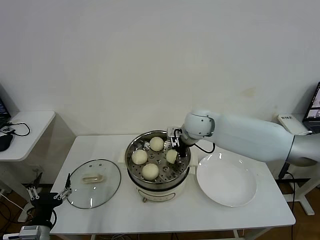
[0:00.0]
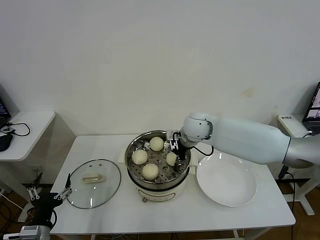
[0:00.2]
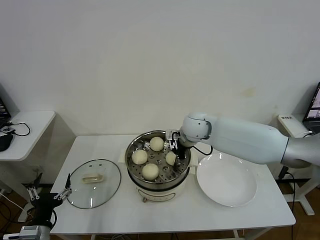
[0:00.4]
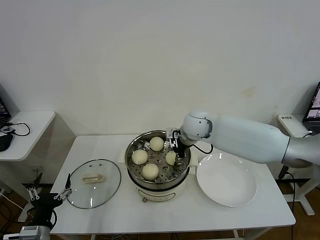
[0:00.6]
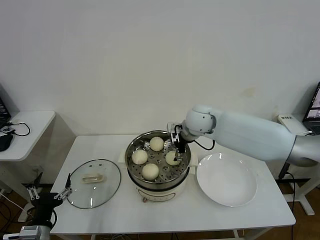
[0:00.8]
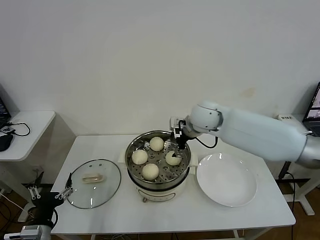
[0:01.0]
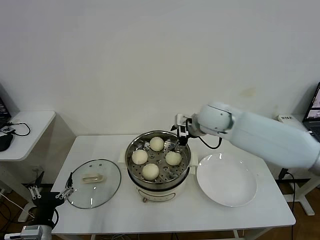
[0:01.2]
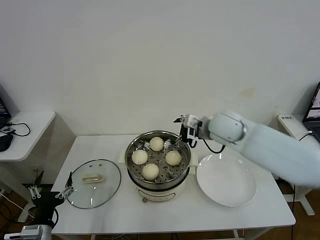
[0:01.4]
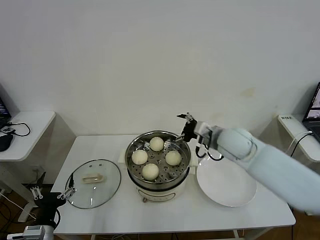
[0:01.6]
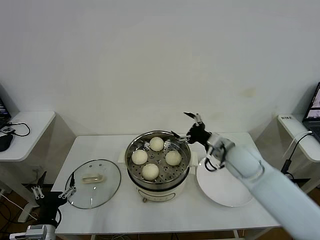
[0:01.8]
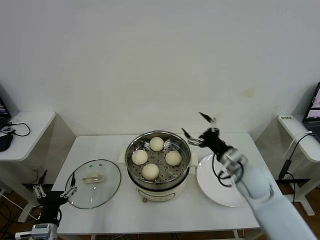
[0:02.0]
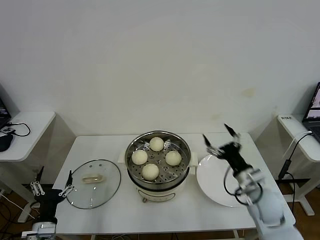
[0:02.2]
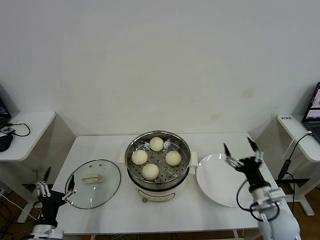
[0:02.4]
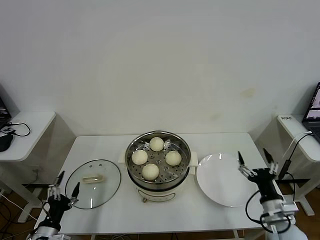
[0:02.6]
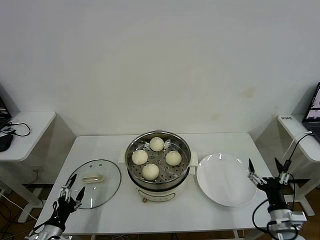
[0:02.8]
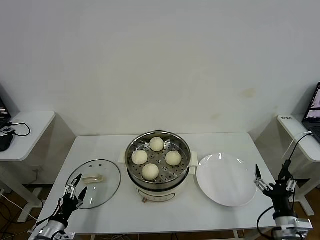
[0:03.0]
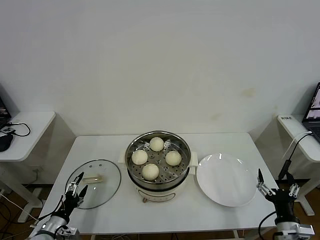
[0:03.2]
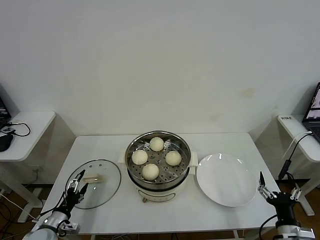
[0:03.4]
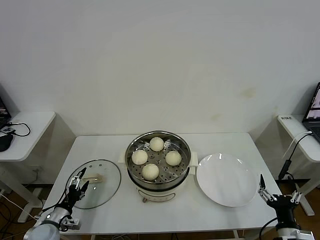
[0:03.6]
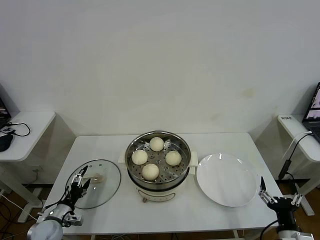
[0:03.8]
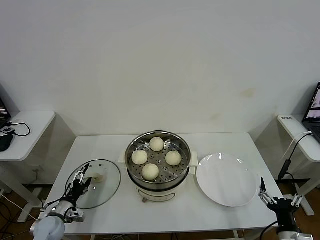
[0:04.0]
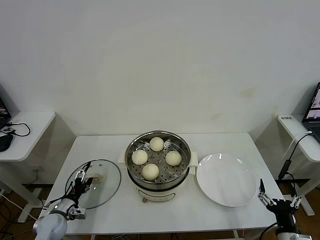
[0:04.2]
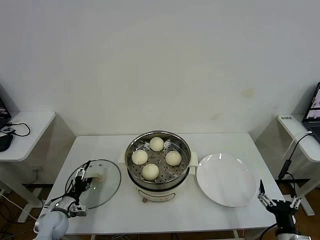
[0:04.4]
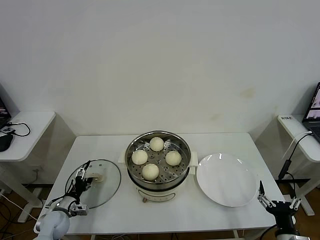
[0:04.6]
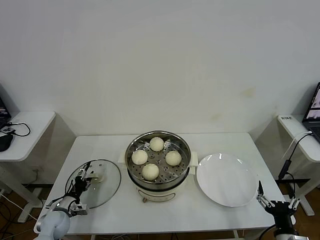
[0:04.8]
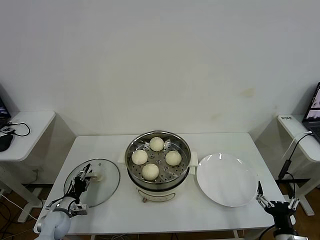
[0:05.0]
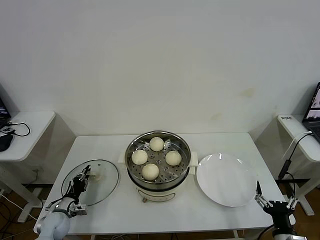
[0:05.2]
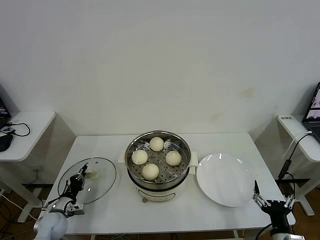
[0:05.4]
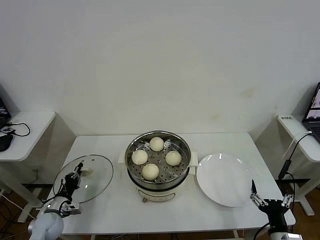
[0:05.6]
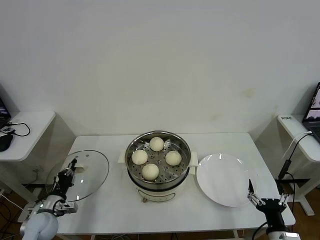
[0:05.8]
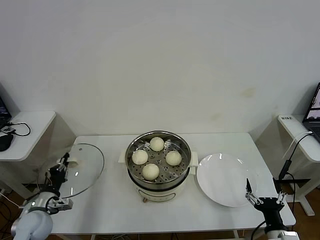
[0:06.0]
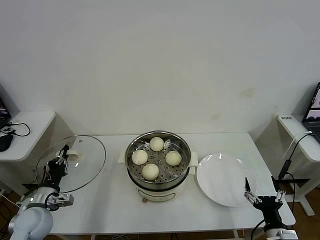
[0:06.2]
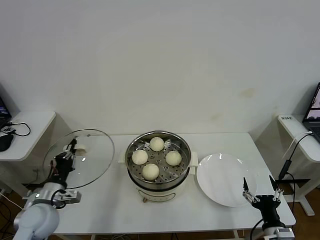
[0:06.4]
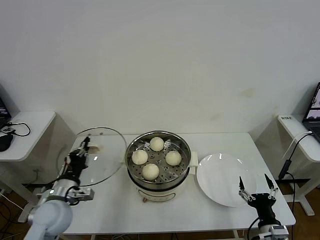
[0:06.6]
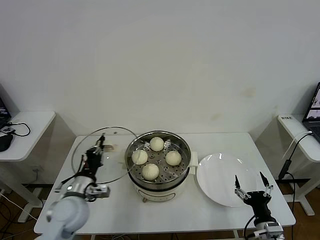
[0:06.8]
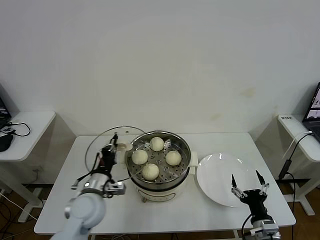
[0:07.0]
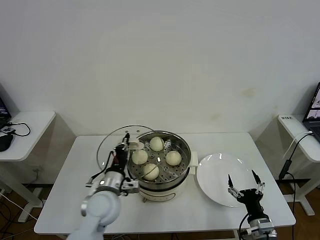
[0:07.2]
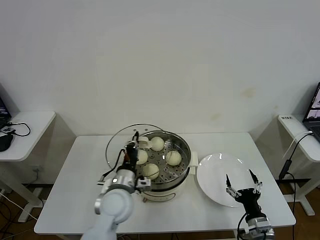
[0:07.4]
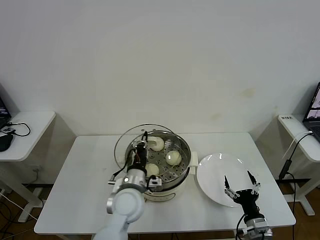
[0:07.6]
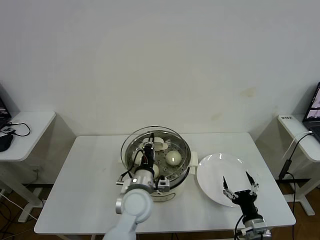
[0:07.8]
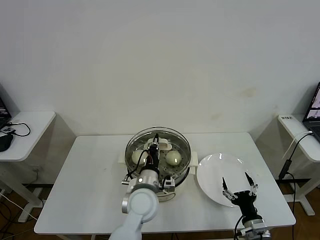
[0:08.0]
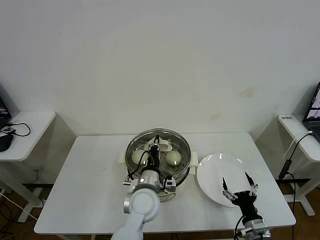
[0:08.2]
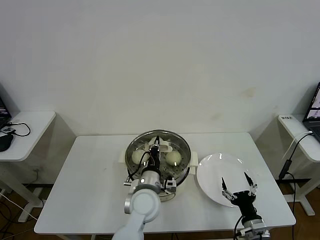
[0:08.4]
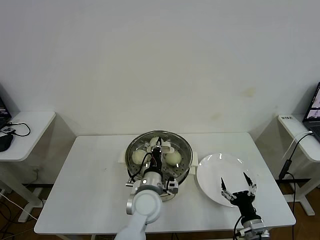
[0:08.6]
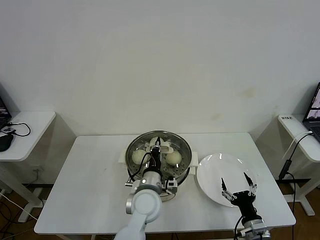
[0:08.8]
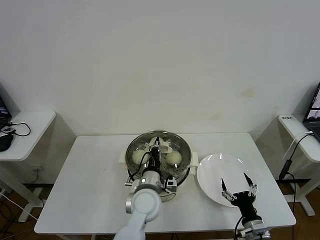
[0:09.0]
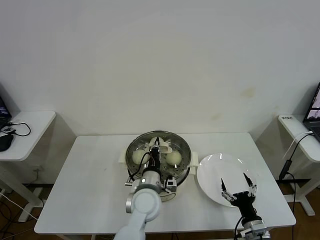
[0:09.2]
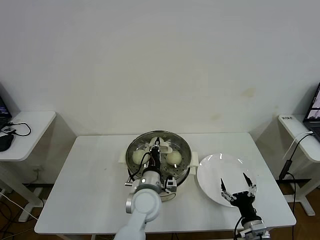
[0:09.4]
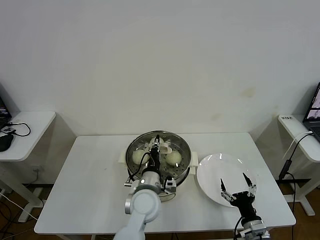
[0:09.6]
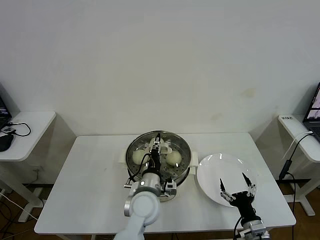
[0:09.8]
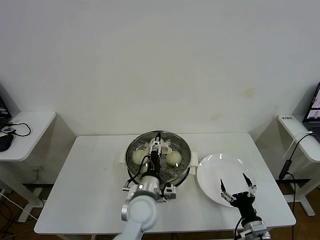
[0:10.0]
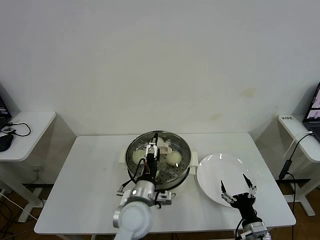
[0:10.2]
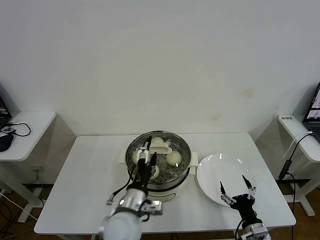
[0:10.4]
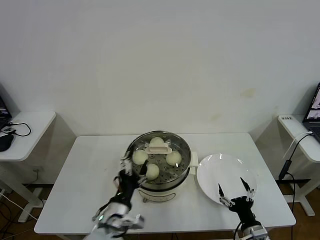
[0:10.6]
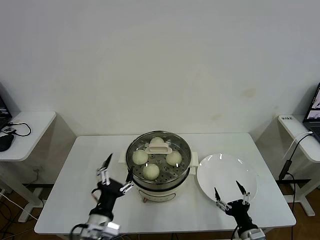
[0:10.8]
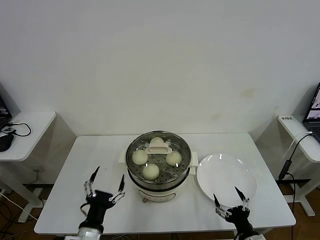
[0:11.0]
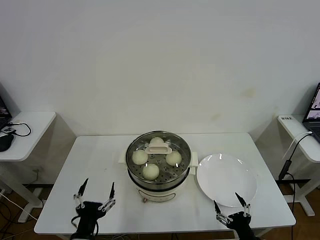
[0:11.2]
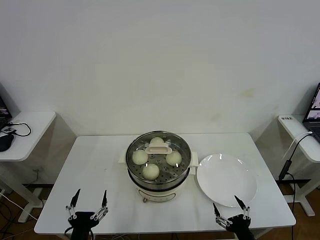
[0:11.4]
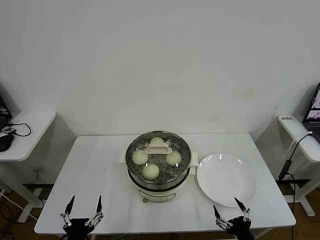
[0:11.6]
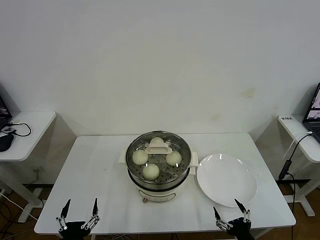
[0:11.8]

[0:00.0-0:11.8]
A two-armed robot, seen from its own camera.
Task of the whole recording: take steamed baozi put them in steamer then cover it.
Step, 0:01.0 to 0:05.4: Grasp the pot lid with left gripper.
Step, 0:05.6 to 0:10.0: Place the pot lid on the steamer with left gripper.
0:00.0 to 0:01.4: The right gripper heads to the right and backward, covering approximately 10 cm, and opens up.
0:01.4 to 0:03.0: The right gripper is displaced backward, downward and to the right by some 40 cm, while the left gripper moves downward, approximately 10 cm.
0:03.0 to 0:04.4: The left gripper travels forward by about 10 cm.
0:04.4 to 0:06.0: The left gripper shifts roughly 10 cm upward, and closes up.
0:06.0 to 0:07.4: The left gripper heads to the right, covering some 25 cm, while the right gripper shifts by approximately 5 cm.
0:07.4 to 0:08.8: The left gripper travels to the right by some 10 cm.
0:08.8 to 0:10.4: The left gripper goes roughly 5 cm backward, and opens up.
0:10.4 to 0:11.8: The right gripper travels backward by approximately 5 cm; the left gripper shifts roughly 25 cm backward, to the left and downward.

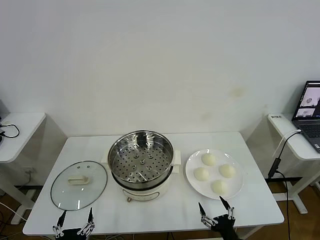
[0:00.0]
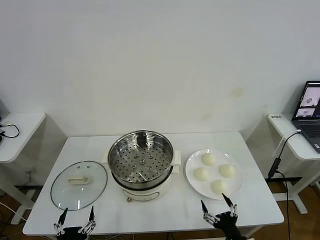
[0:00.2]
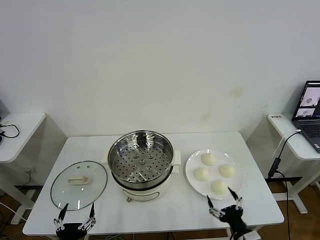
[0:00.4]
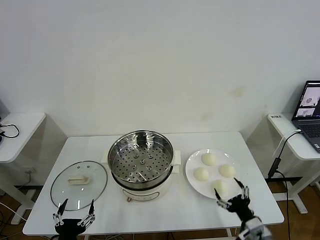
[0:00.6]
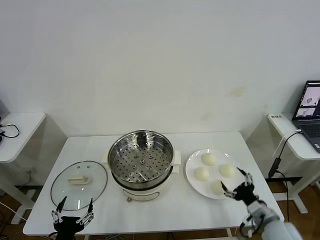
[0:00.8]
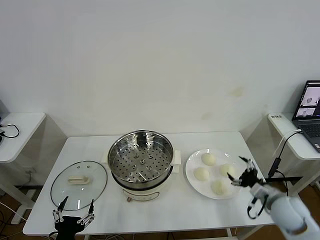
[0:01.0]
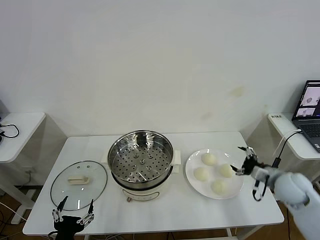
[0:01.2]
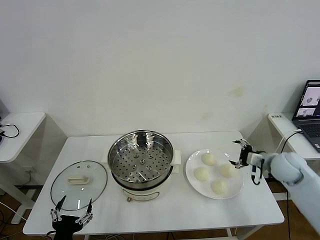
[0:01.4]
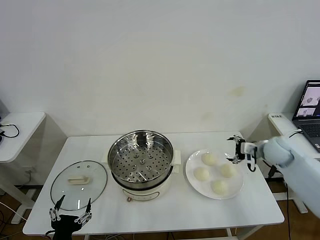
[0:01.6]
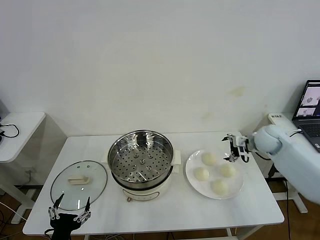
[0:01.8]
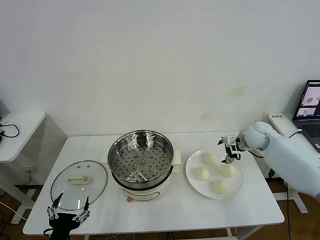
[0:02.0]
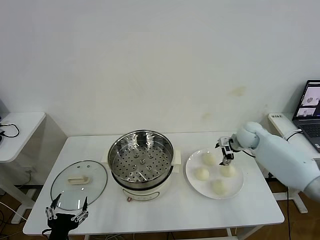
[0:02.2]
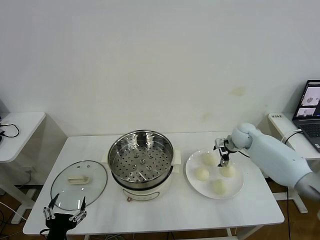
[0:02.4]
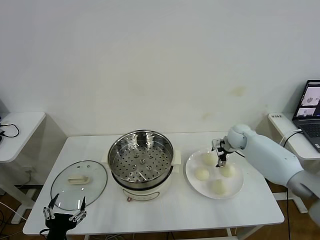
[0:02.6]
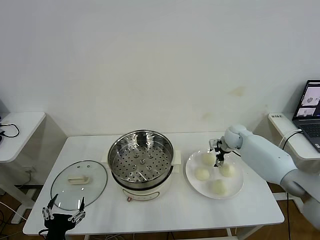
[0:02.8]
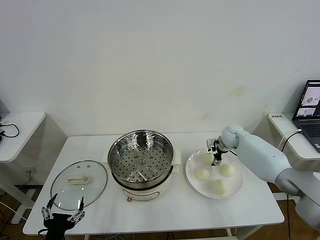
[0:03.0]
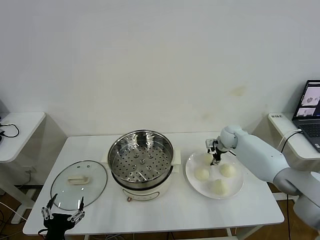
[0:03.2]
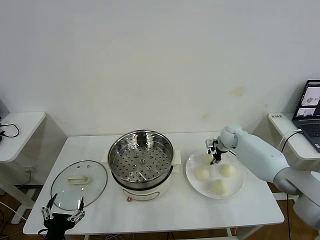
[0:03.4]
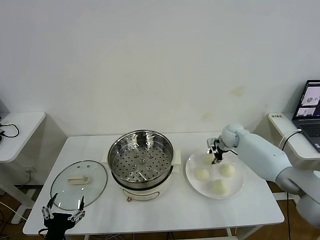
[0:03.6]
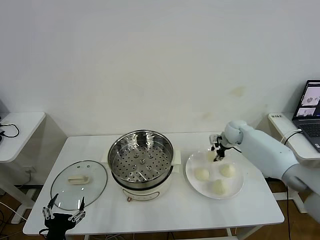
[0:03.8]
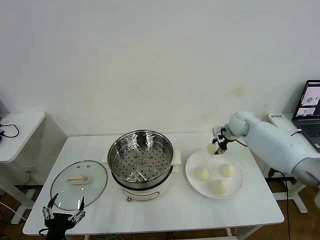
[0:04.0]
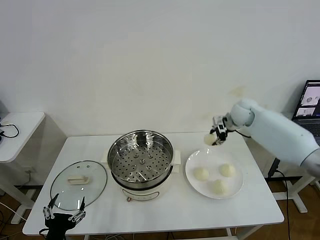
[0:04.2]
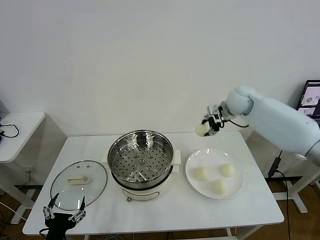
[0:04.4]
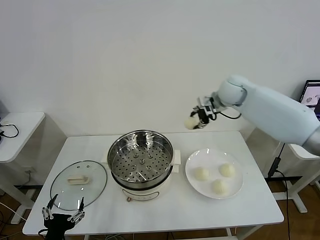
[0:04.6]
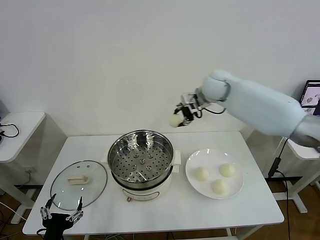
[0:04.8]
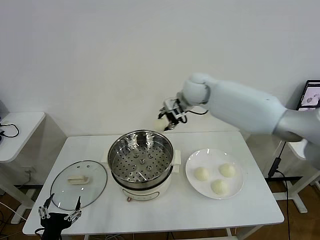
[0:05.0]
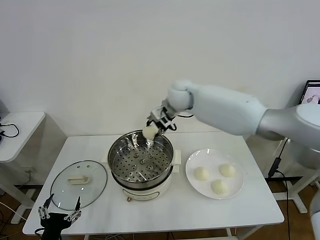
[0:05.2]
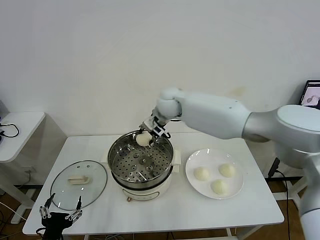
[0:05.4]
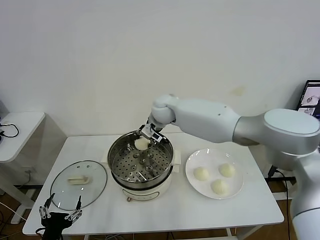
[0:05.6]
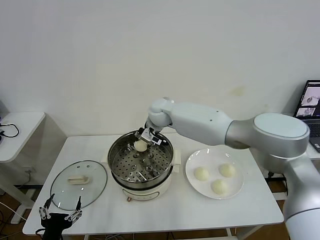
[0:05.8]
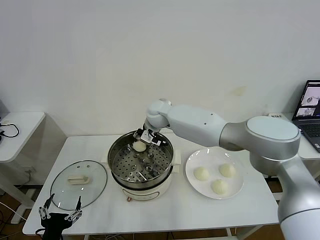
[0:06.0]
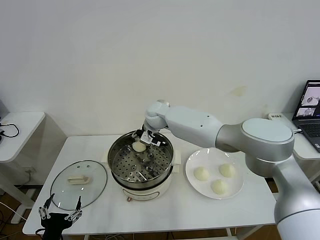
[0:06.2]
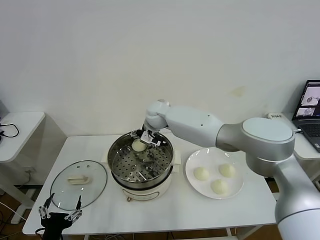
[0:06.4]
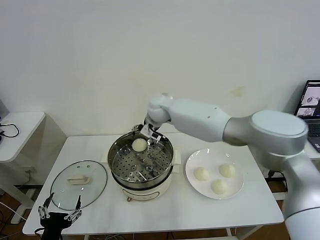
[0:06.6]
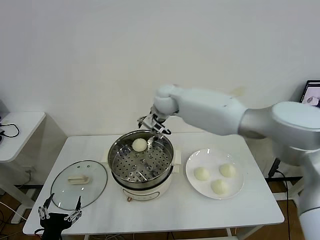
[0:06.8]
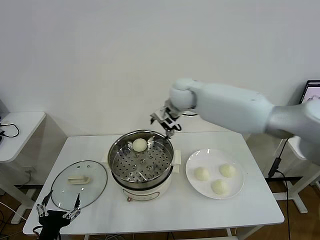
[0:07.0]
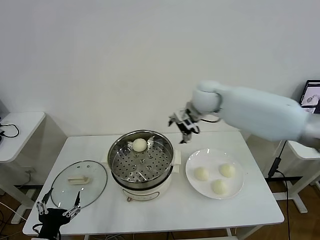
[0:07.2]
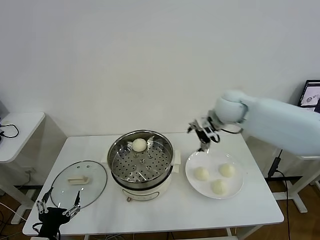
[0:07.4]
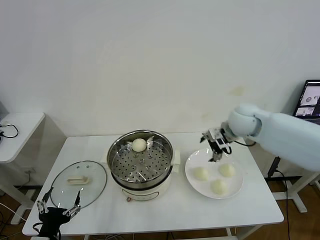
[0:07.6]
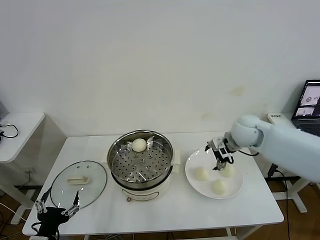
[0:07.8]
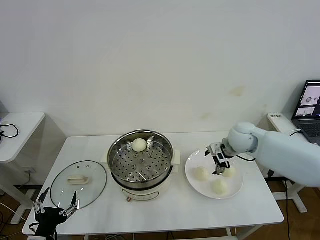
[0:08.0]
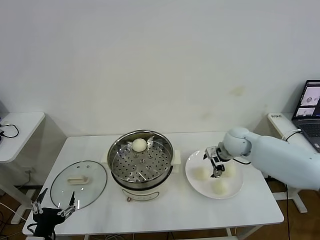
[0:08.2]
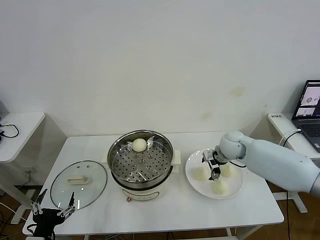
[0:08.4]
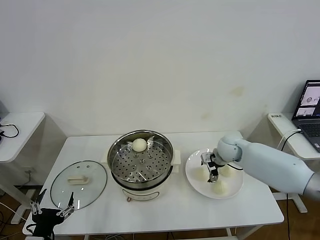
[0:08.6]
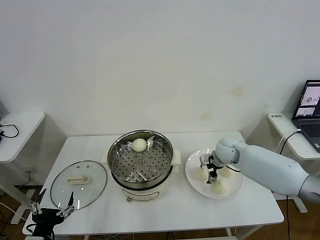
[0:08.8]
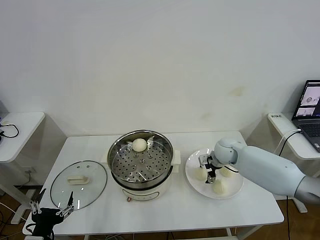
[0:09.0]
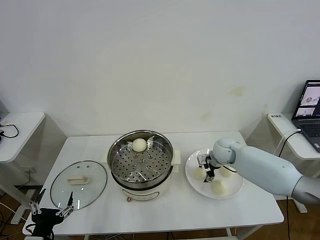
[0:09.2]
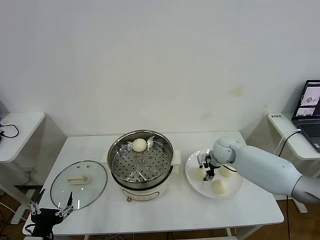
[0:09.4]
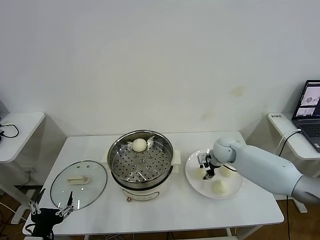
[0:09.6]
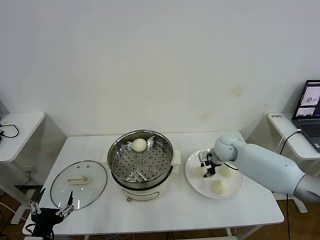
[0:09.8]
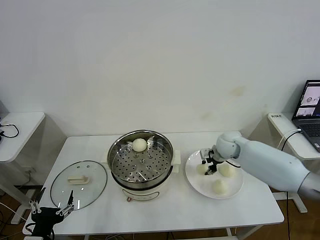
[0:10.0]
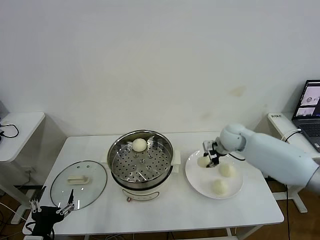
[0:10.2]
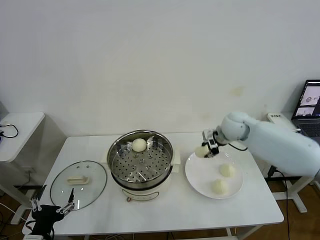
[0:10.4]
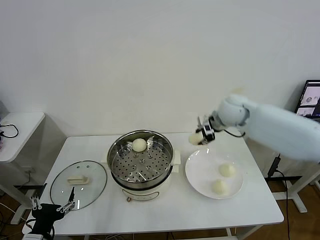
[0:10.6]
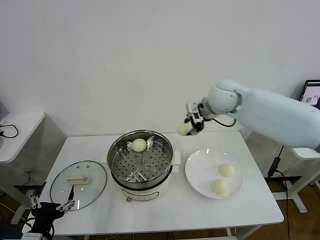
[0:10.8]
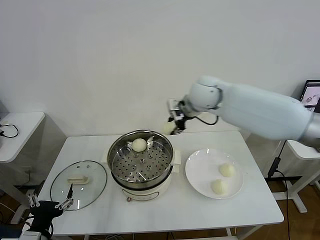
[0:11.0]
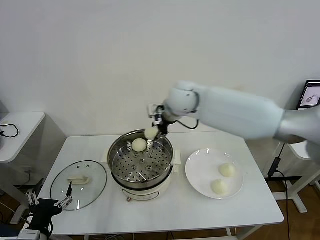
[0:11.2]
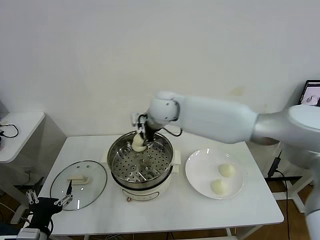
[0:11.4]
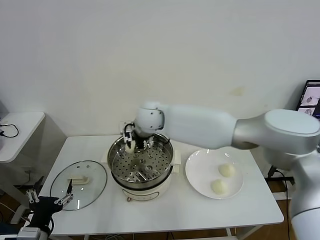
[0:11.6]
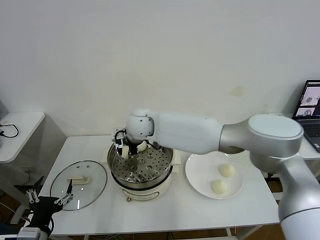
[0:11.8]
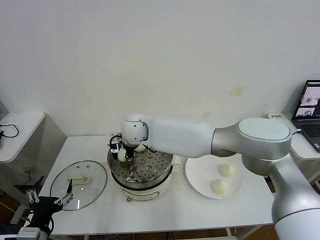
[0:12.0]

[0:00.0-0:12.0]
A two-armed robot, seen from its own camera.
Task of the whole recording: take steamed baozi put them in steamer then cover it.
Step, 0:00.0 to 0:03.4: Grasp the baozi in the plate with right gripper.
Step, 0:03.6 to 0:06.4: Place the baozi on the steamer with right gripper.
Step, 0:06.6 to 0:09.6: Grasp the baozi in the plate with right gripper.
0:01.6 to 0:03.0: The right gripper is displaced forward, to the left and downward by about 15 cm, and closes up.
0:03.0 to 0:04.4: The right gripper is displaced upward by approximately 20 cm, and closes its fingers.
0:04.4 to 0:06.0: The right gripper goes some 25 cm to the left.
0:06.0 to 0:07.6: The right gripper travels to the right by roughly 30 cm, and opens up.
0:07.6 to 0:09.0: The right gripper moves downward, roughly 15 cm.
0:09.0 to 0:10.4: The right gripper shifts some 15 cm upward, and closes up.
0:10.4 to 0:12.0: The right gripper shifts approximately 35 cm to the left.
